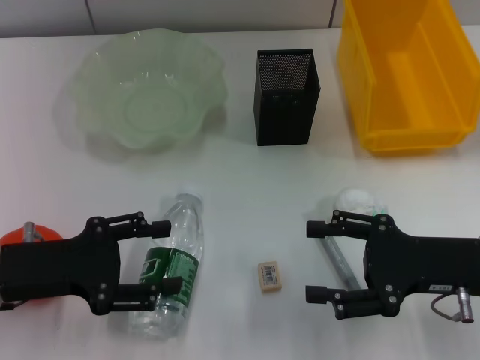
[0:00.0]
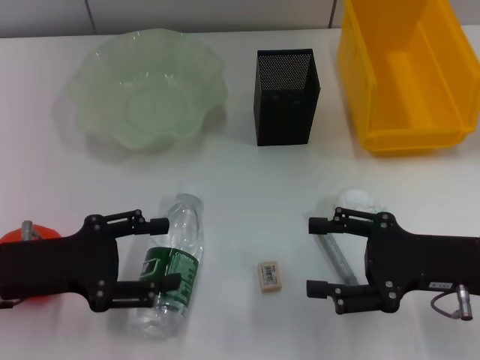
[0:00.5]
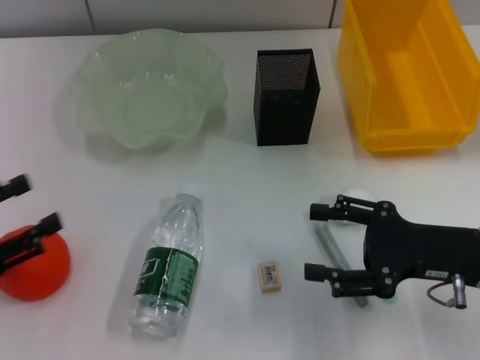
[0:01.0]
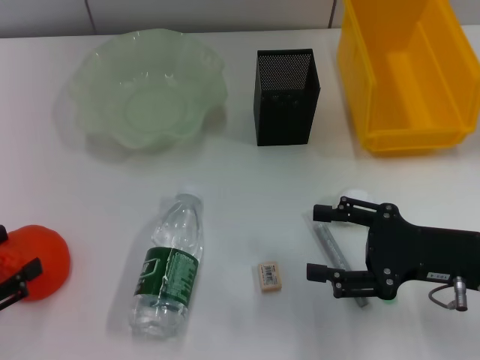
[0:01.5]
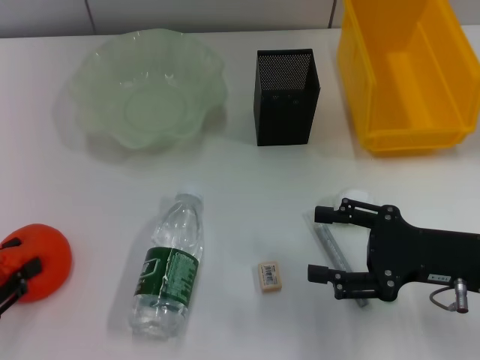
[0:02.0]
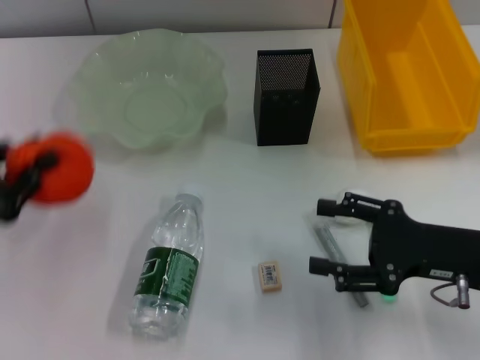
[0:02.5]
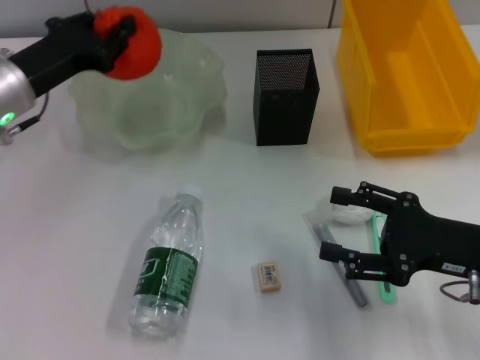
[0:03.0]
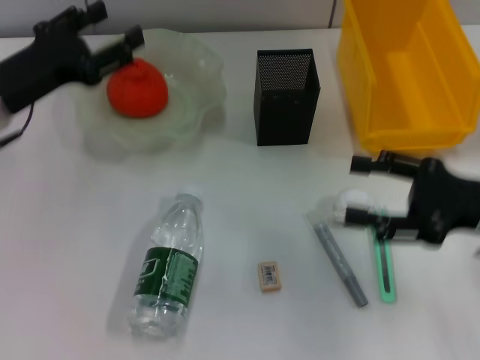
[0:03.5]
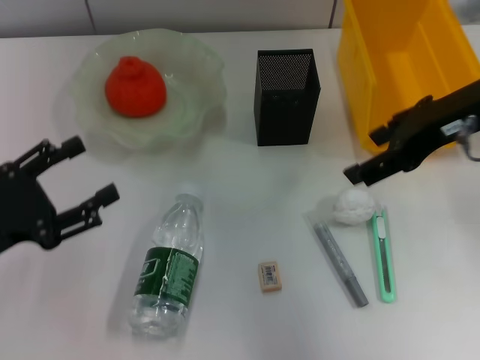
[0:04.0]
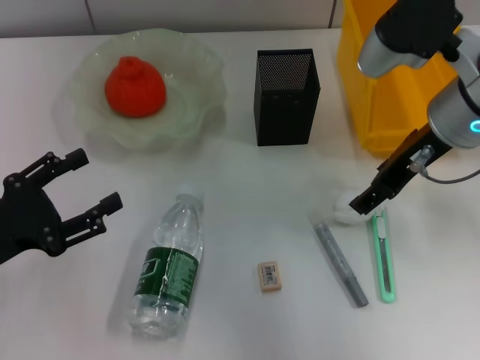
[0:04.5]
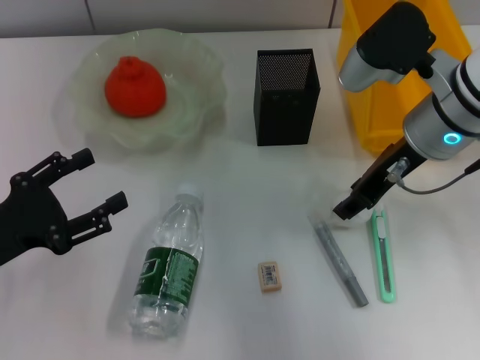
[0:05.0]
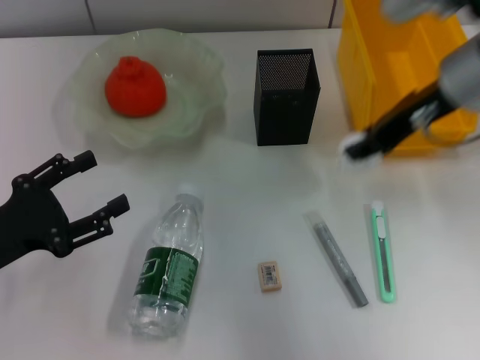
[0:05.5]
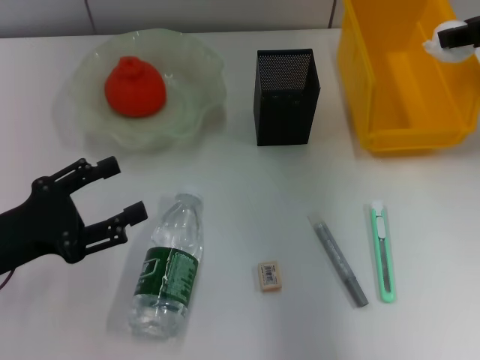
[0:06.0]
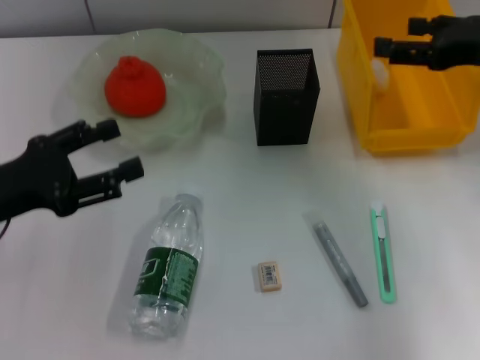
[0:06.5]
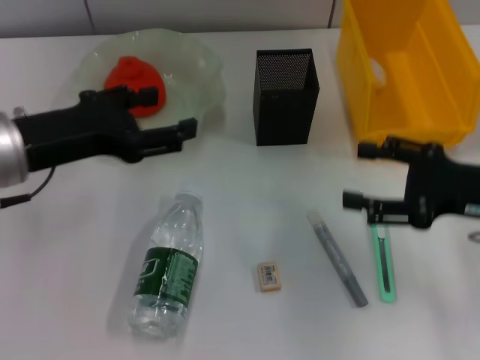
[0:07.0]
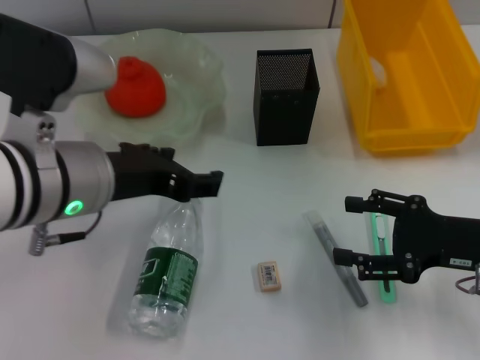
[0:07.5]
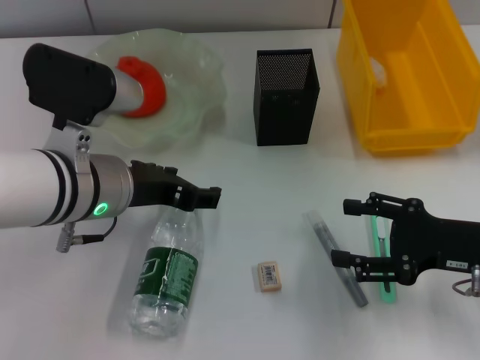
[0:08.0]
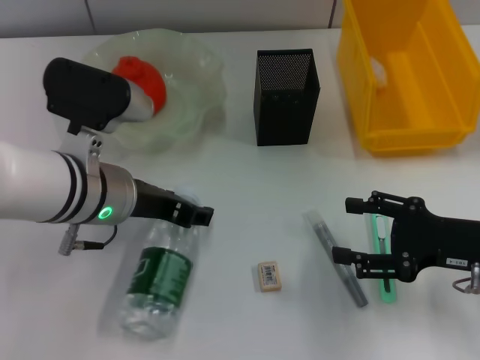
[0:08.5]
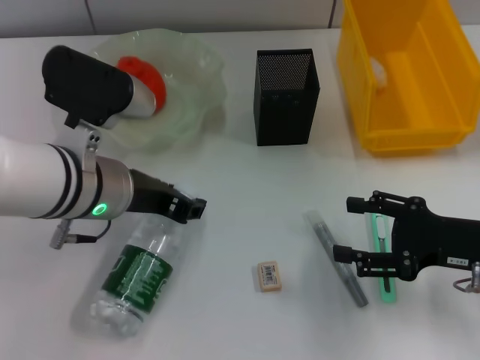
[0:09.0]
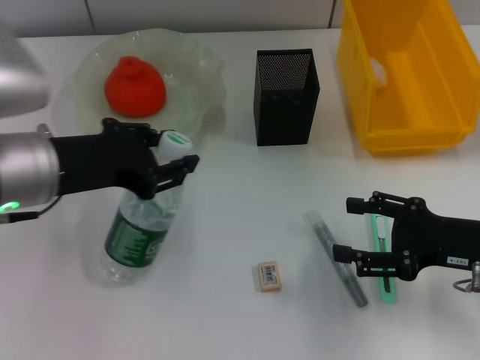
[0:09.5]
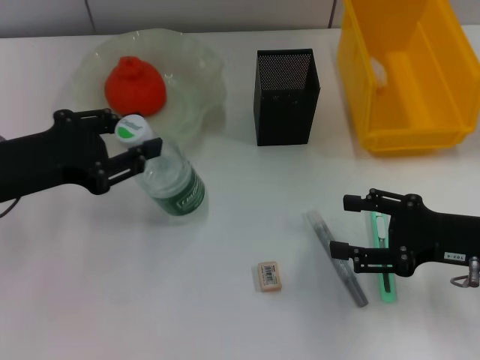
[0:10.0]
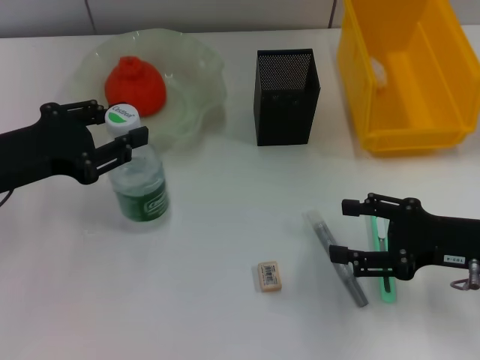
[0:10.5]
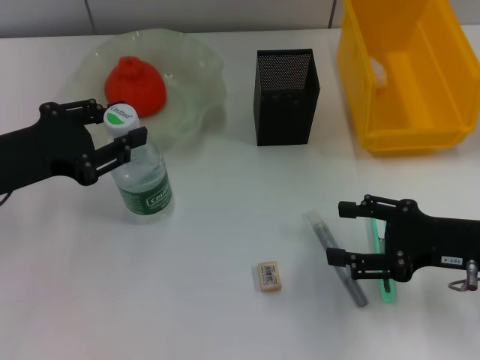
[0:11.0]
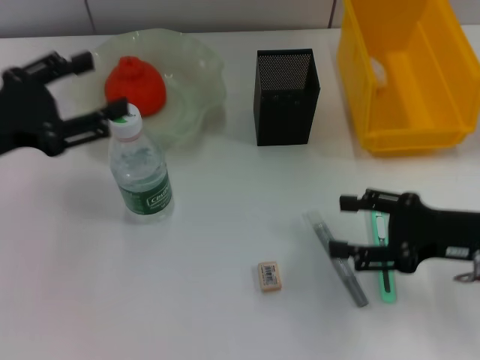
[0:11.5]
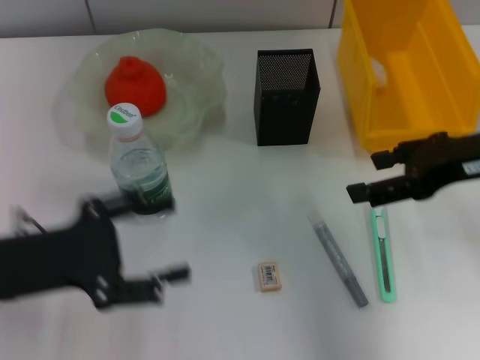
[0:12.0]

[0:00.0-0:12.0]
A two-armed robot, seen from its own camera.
Step, 0:00.0 to 0:02.0: Grab the orange with the left hand.
Step, 0:02.5 to 0:03.0: Place the orange into the fruit bowl with the left hand.
Step, 0:03.5 to 0:05.0: Grab the paper ball with the right hand.
Step, 0:05.5 to 0:06.5: Place the paper ball into the trash can with the right hand.
Step, 0:07.0 to 0:08.5: Grab the water bottle with the left hand.
Step, 0:09.0 to 0:11.0: Place the water bottle on the table with the left hand.
0:00.0 to 0:02.0: The left gripper is displaced to the left and backward by approximately 10 cm.
0:02.0 to 0:04.0: The right gripper shifts some 20 cm upward and forward. Meanwhile the left gripper heads to the right, covering some 5 cm, goes forward and returns, about 25 cm each way, and opens up.
0:04.0 to 0:06.0: The right gripper goes about 10 cm to the right and forward, and closes up.
0:06.0 to 0:08.0: The right gripper shifts about 20 cm downward and backward, and opens. The left gripper moves to the right, forward and upward, about 15 cm.
0:08.0 to 0:10.0: The left gripper shifts about 10 cm to the left, and closes.
0:10.0 to 0:12.0: The left gripper shifts by some 5 cm, and opens its fingers. The right gripper heads upward, covering about 15 cm.

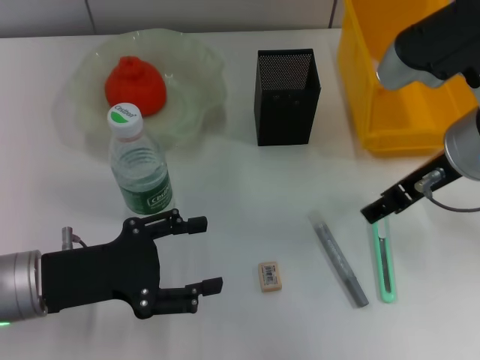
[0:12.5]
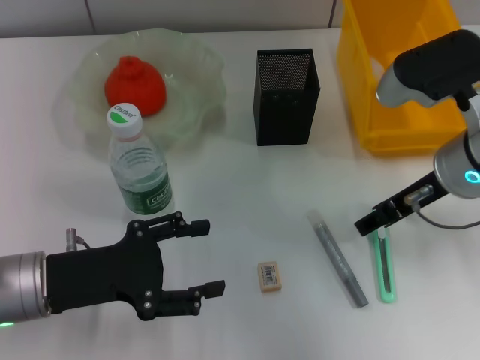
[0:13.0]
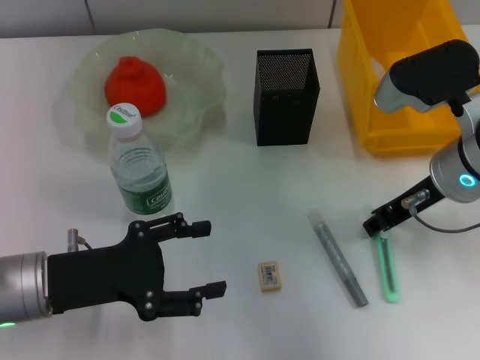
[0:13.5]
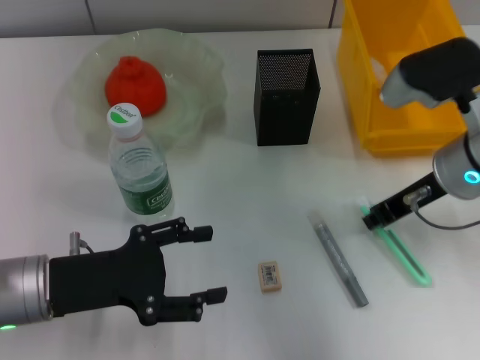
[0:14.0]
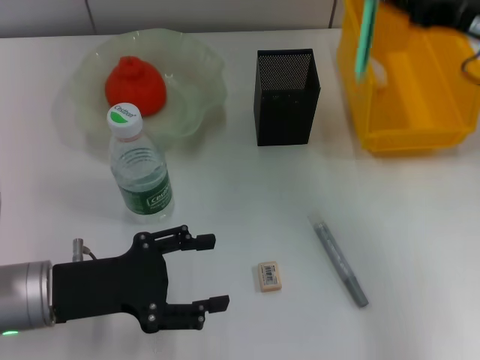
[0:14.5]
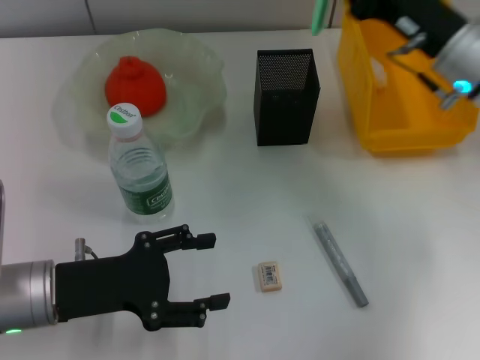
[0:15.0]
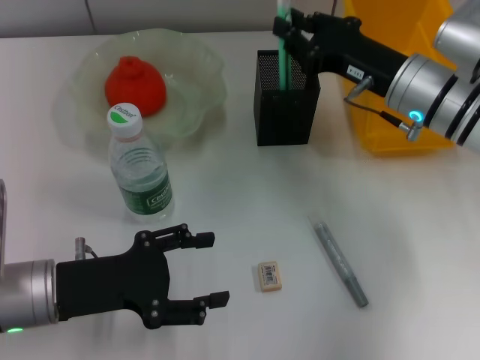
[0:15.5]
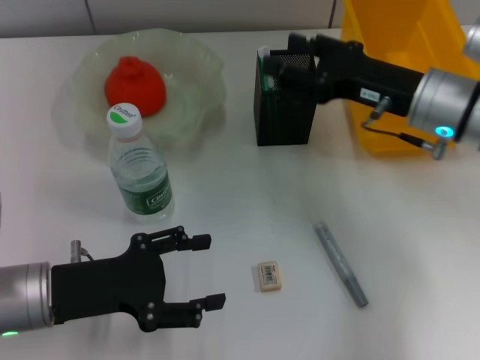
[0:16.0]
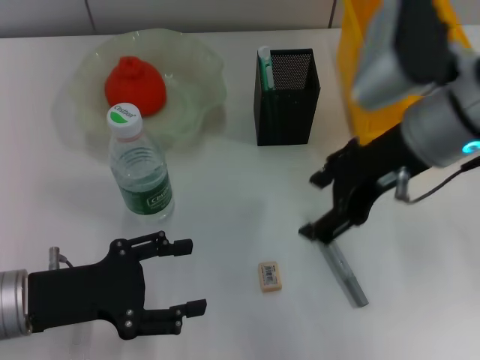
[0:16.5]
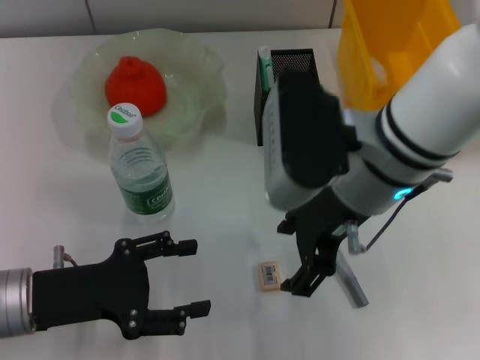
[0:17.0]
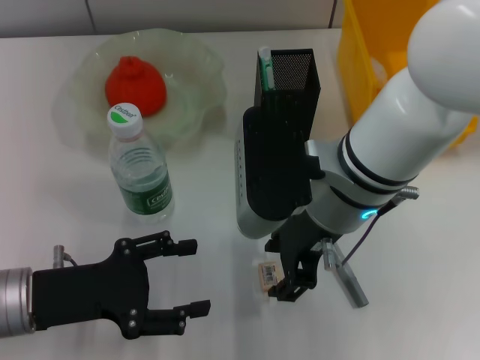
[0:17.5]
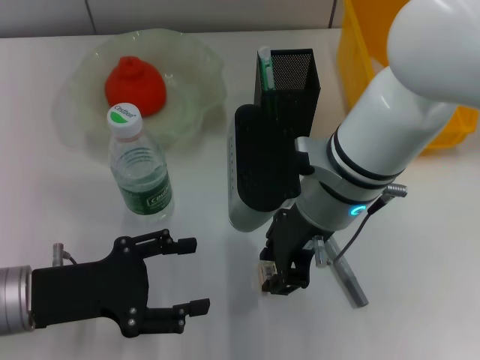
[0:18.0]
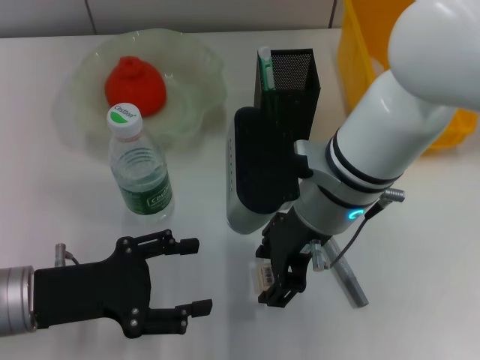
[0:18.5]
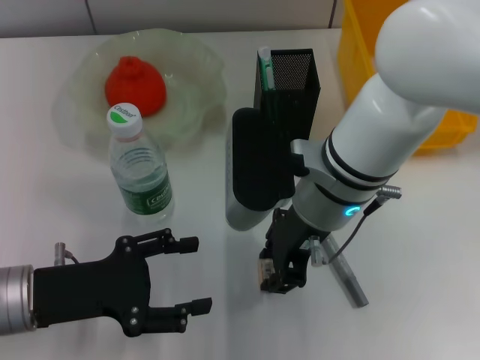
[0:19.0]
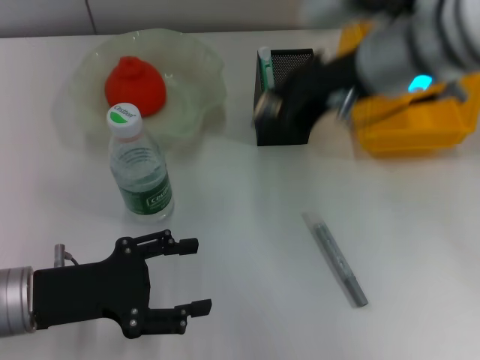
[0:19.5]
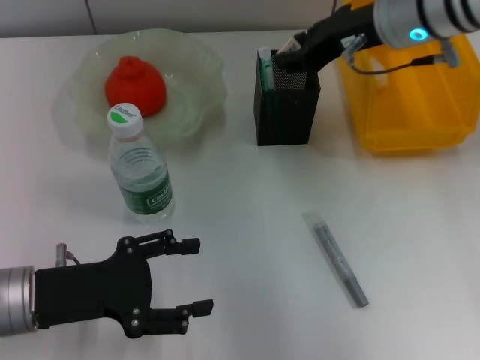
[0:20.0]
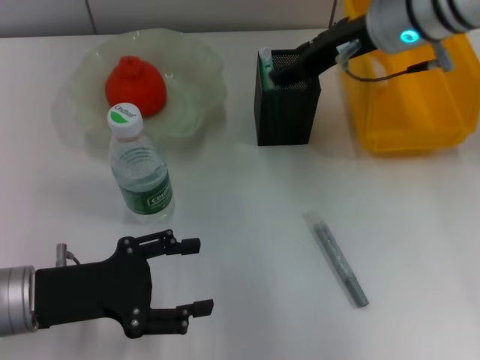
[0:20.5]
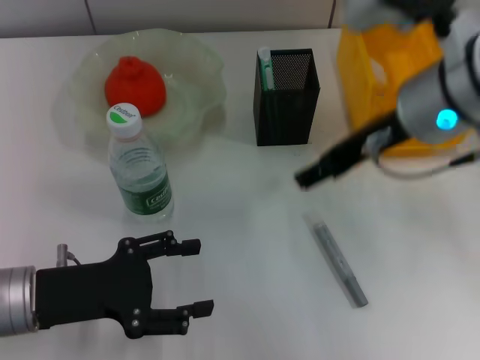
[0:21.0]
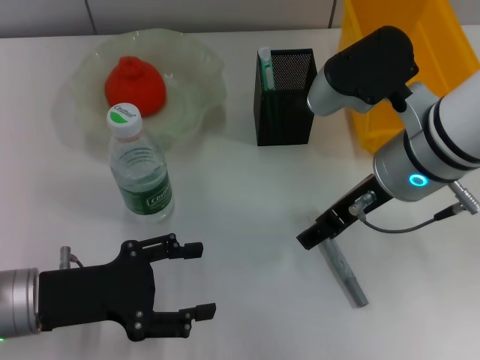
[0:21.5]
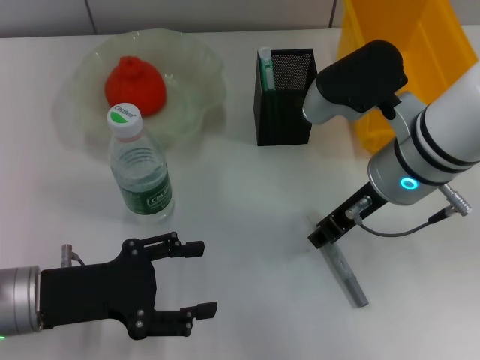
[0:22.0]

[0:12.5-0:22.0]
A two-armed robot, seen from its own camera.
Step, 0:14.0 to 0:15.5: Place the blue utility knife into the pen holder with the right hand.
Step, 0:16.0 to 0:18.5: Grab the eraser with the right hand.
Step, 0:19.0 to 0:20.5: Put the eraser into the pen holder with the right hand.
0:12.5 to 0:14.5: The right gripper moves to the right, approximately 10 cm, and closes up.
0:14.5 to 0:16.5: The right gripper goes some 10 cm to the left, and opens up.
0:16.5 to 0:18.0: The right gripper goes some 10 cm to the left and downward, and closes its fingers.
0:18.0 to 0:20.0: The right gripper is displaced forward, to the right and upward by some 15 cm.
0:20.0 to 0:22.0: The right gripper is displaced backward and downward by roughly 10 cm, and opens up.

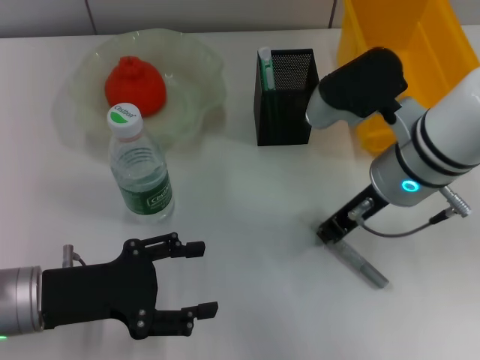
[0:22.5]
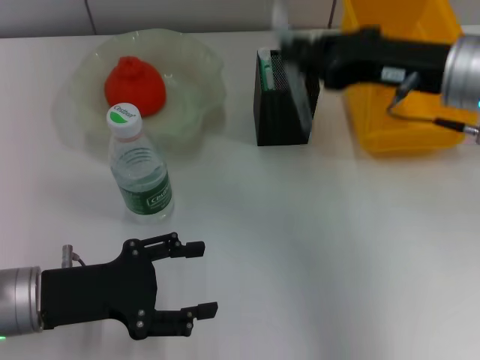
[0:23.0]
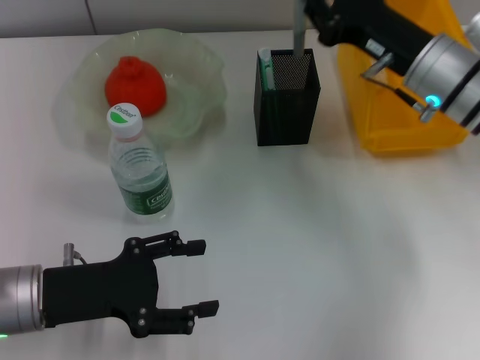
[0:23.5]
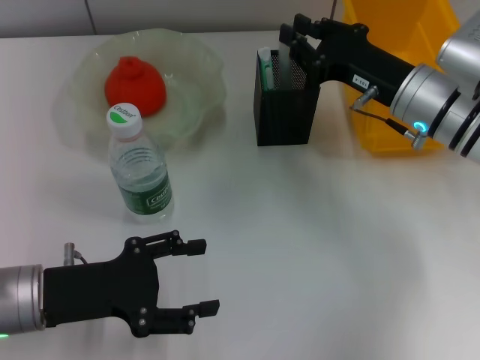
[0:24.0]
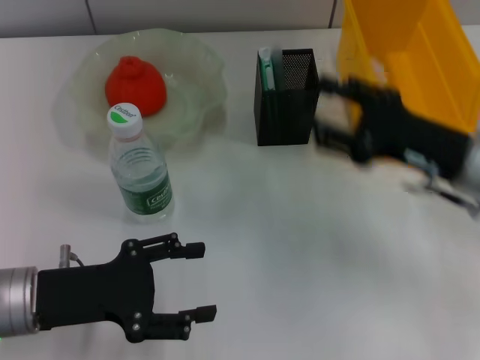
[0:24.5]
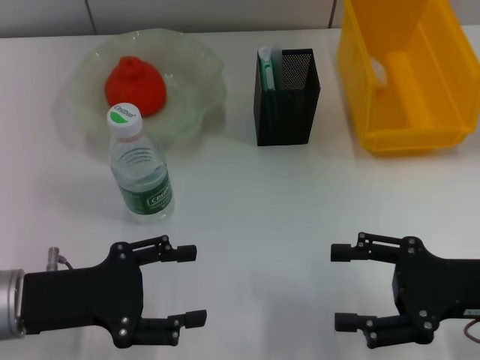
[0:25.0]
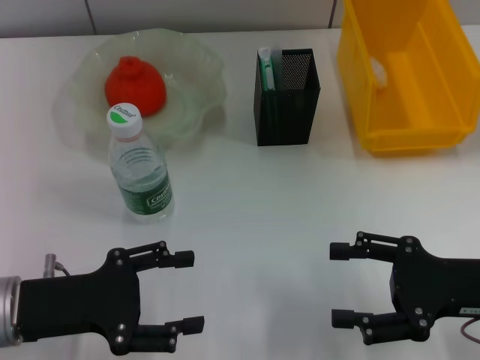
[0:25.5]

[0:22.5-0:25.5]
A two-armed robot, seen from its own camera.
Step, 0:22.5 to 0:24.0: Place the gray glue into the pen holder with the right hand.
0:22.5 to 0:24.0: The right gripper moves to the right, some 5 cm.
0:24.0 to 0:25.5: The right gripper travels backward and to the right by approximately 15 cm, and opens.
